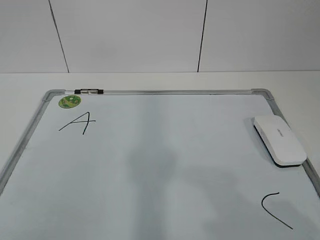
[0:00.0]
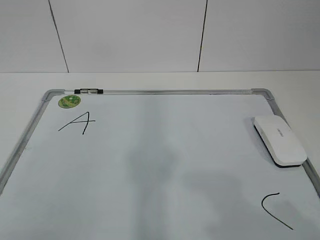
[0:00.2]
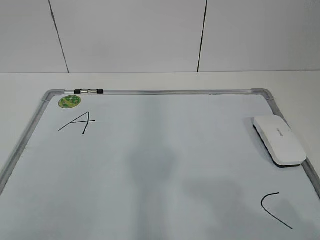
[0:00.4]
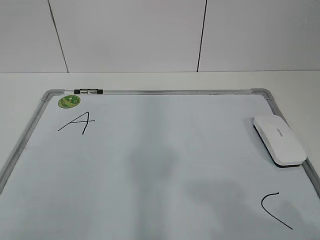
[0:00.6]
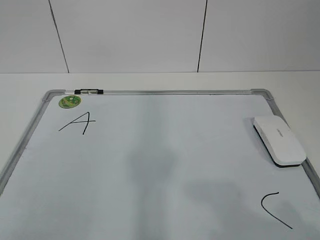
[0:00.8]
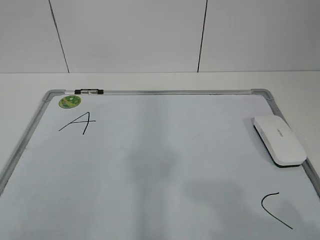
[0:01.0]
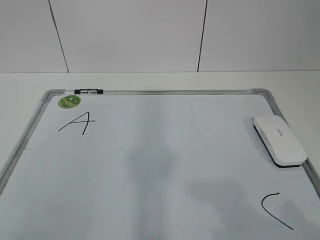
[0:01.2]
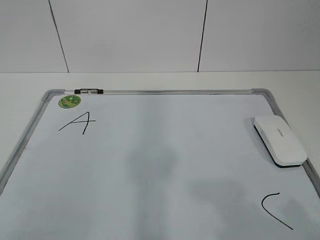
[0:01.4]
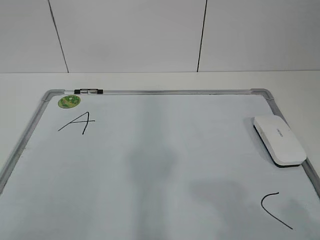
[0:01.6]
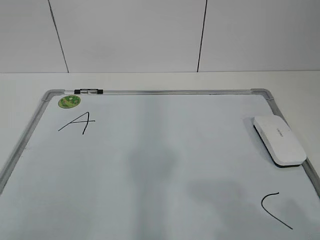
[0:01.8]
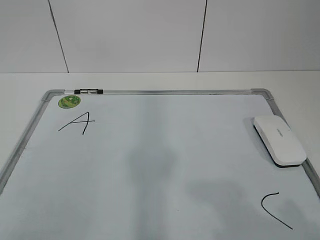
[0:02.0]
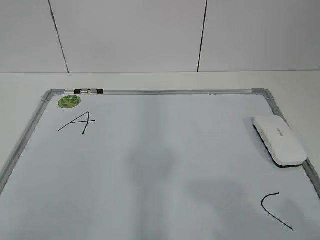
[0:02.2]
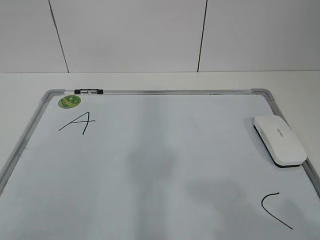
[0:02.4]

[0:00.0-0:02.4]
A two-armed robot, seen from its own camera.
Task of the whole recording: pick up the eraser on the blackboard and erase the letter "B".
0:01.2 to 0:02.4: Both grippers stay about where they are.
